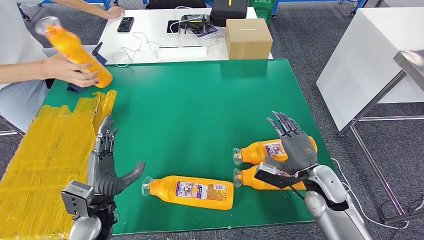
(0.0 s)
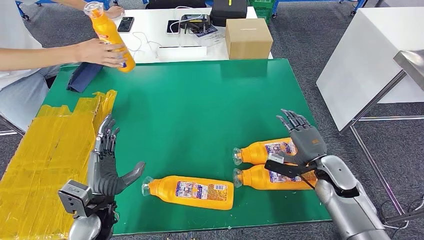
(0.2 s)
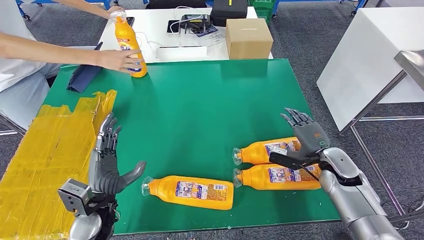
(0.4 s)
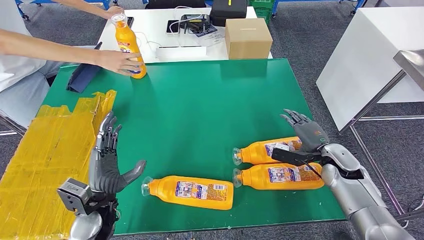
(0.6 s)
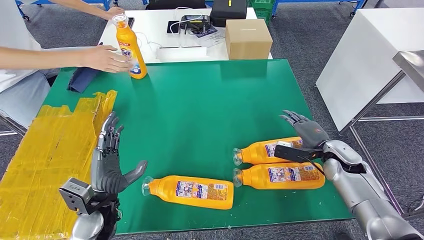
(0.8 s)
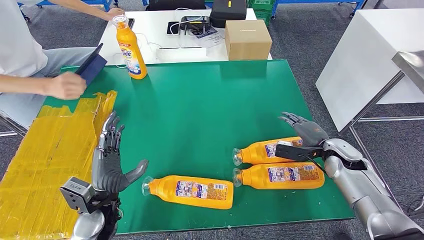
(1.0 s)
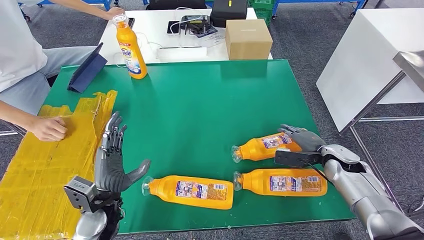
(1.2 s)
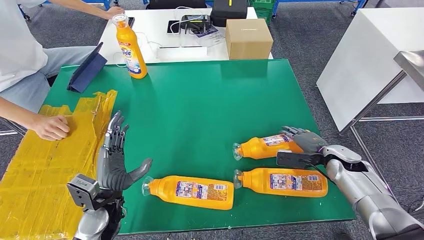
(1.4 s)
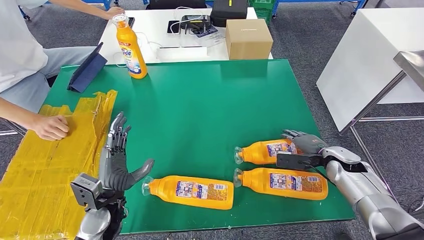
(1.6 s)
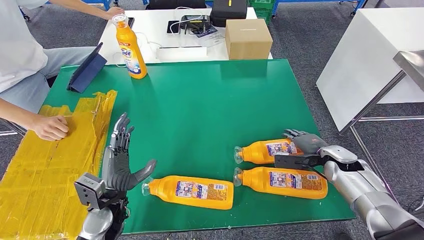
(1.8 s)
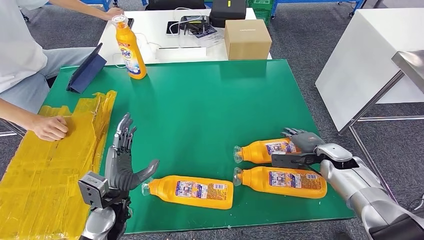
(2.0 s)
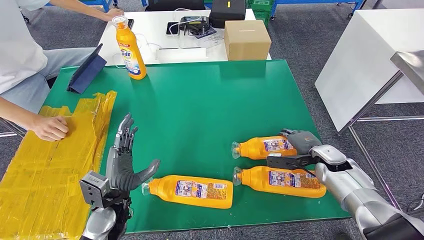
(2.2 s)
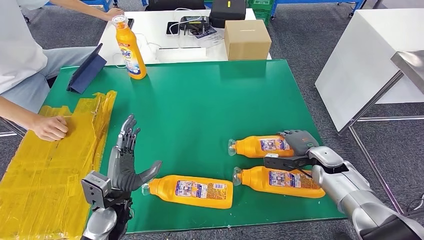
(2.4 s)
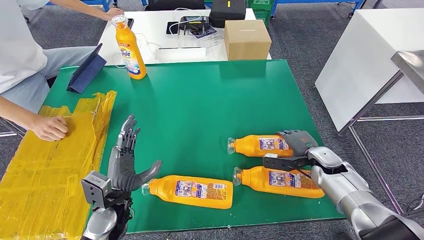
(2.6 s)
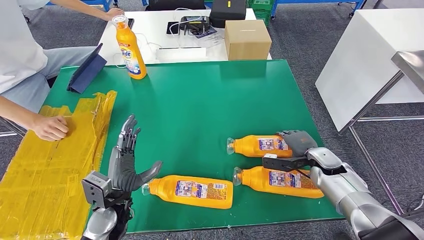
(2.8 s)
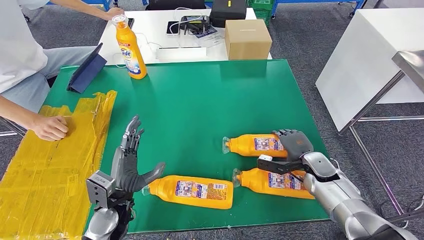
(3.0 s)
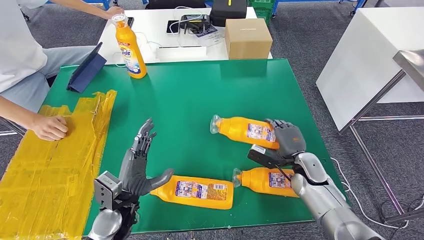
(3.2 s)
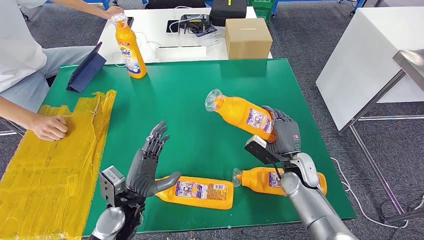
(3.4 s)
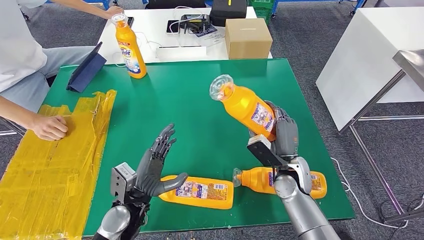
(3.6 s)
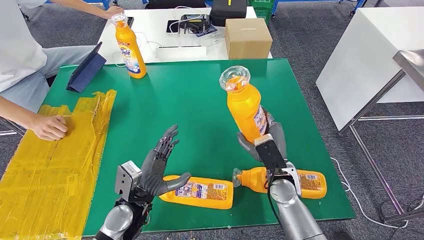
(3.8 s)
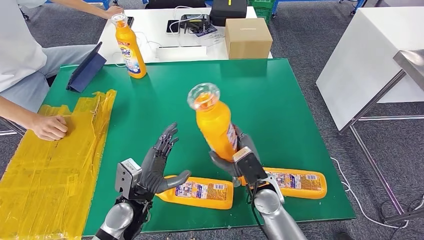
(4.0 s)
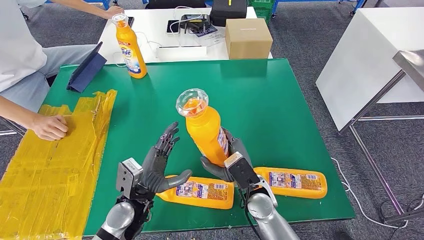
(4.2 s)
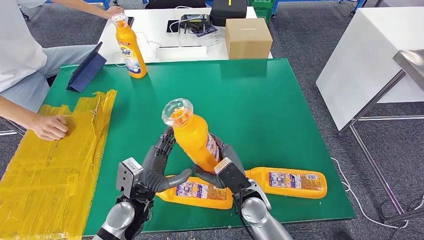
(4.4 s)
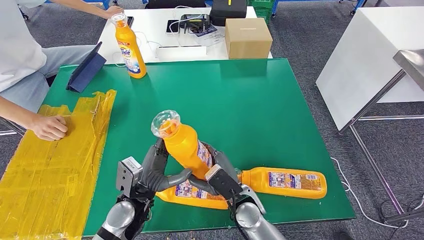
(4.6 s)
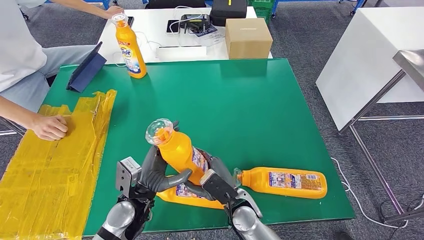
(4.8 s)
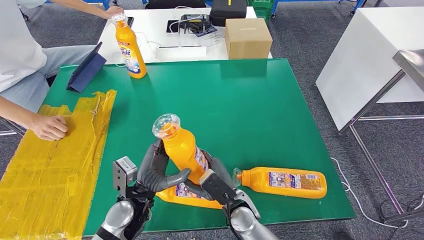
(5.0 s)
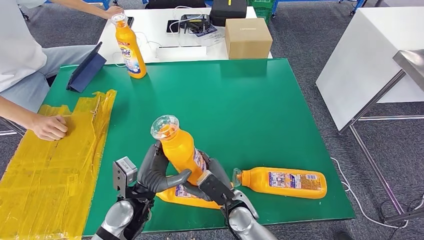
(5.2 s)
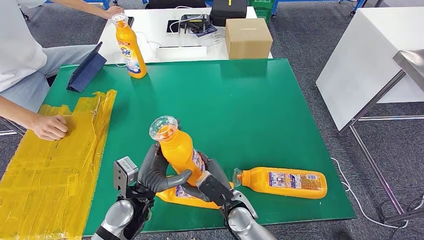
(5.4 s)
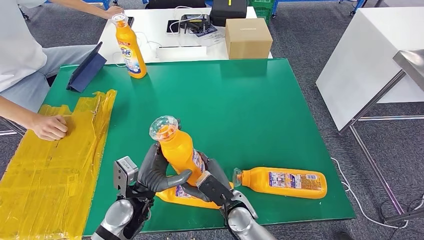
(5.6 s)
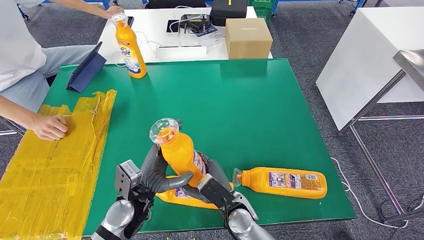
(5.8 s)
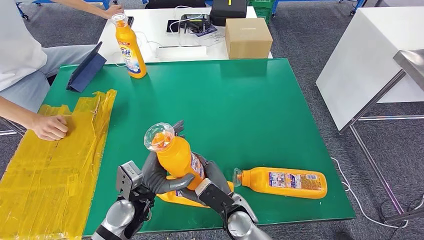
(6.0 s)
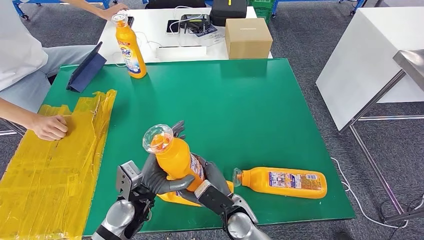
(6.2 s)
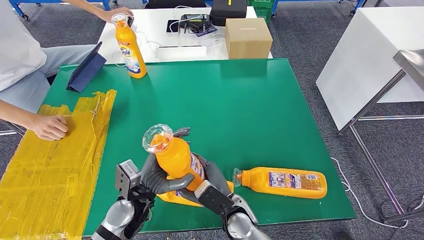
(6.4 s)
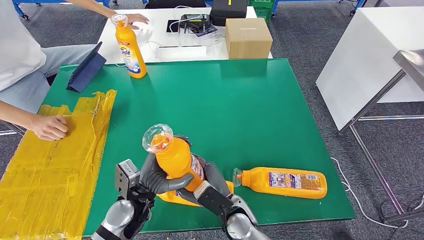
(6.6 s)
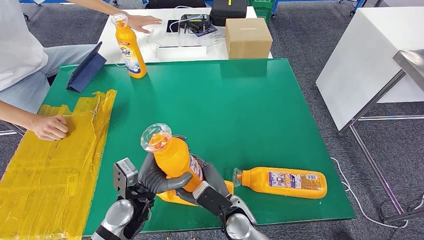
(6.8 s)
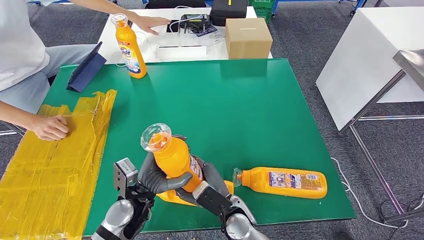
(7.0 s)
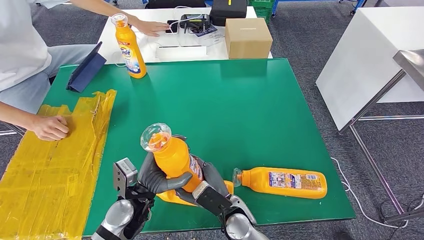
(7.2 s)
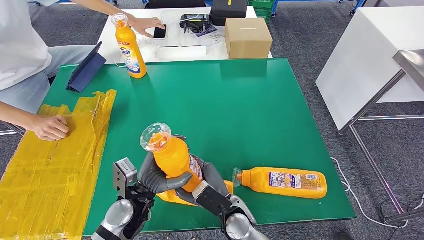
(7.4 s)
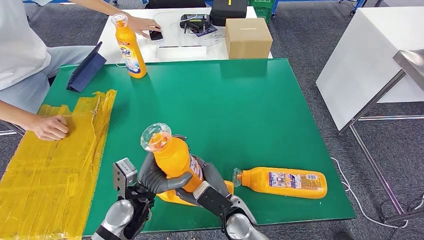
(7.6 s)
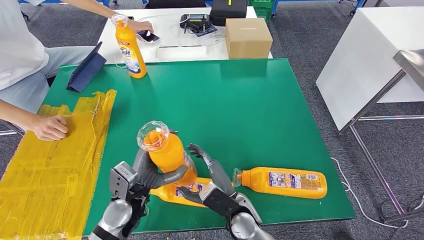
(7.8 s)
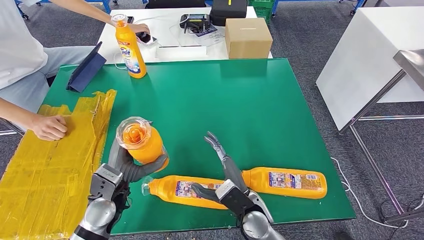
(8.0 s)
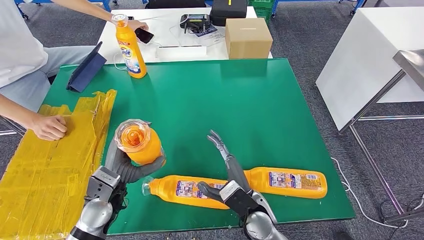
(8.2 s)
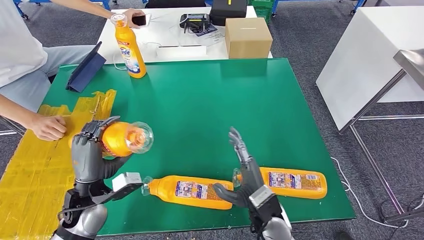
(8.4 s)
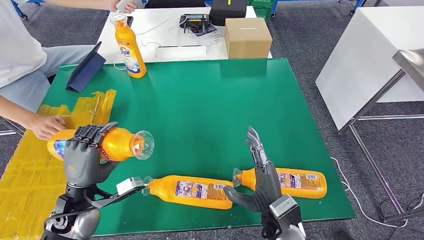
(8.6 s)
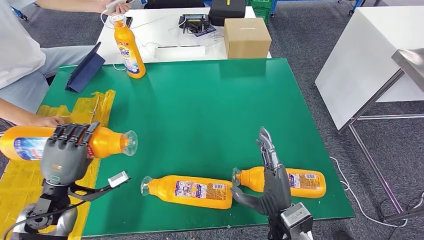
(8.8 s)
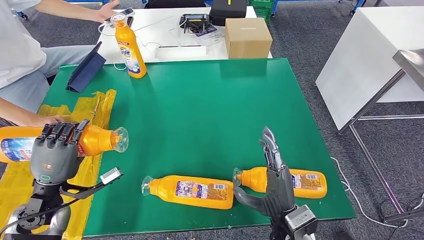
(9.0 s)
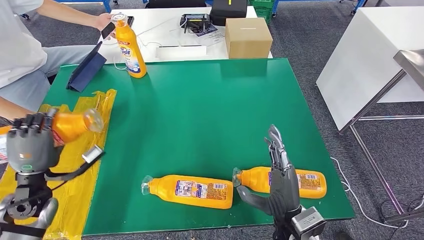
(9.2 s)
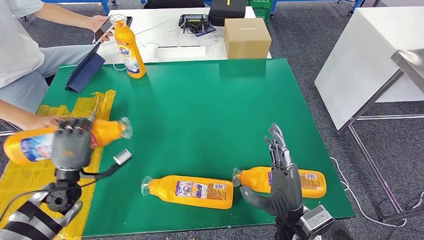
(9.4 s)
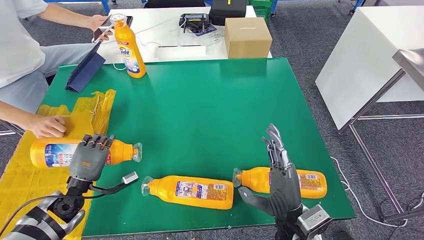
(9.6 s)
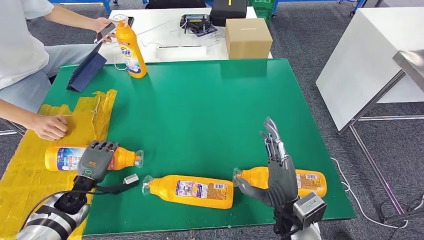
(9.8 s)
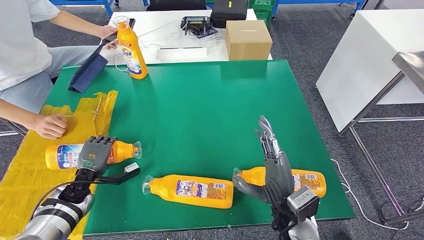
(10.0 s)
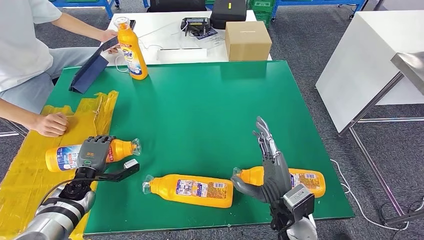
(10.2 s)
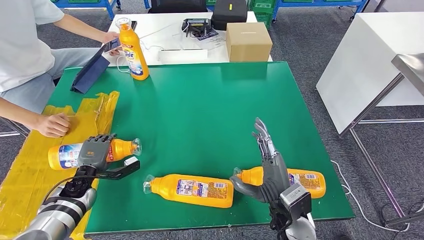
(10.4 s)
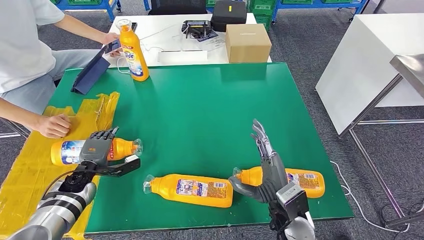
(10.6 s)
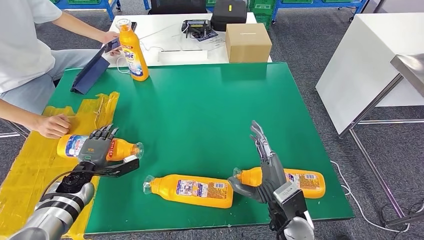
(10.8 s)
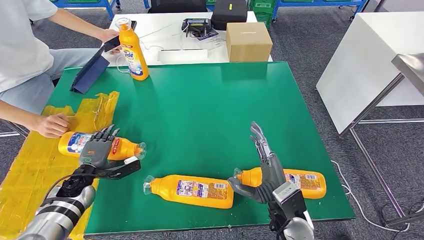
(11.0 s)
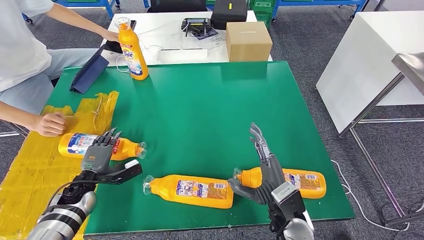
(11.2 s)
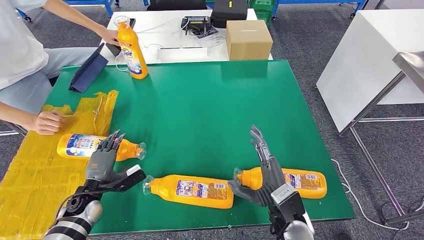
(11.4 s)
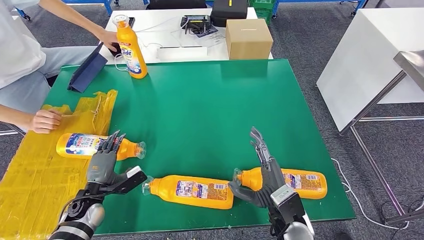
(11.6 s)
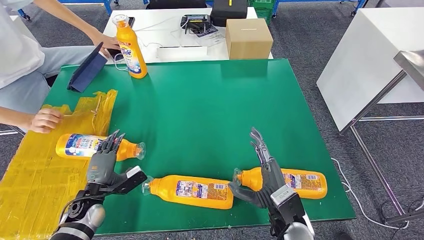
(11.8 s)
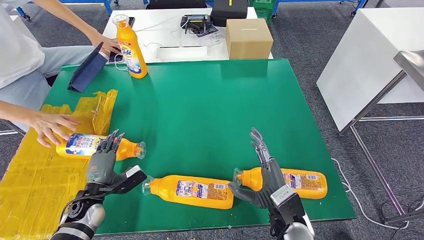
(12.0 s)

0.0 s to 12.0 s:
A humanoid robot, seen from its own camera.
Step, 0.0 to 3.6 s: Pick up the fast-moving consumer goods bottle from the table.
Step, 4.2 to 11.4 s: Flip the fast-moving consumer goods bottle to the front side.
0.0 to 1.6 s: The right hand moves to the right and forward, some 10 cm.
1.6 to 3.0 s: The right hand heads to the left, covering roughly 5 cm.
3.0 to 4.4 s: The right hand travels to the left and backward by some 25 cm.
4.4 to 6.0 s: The right hand shifts by about 5 cm.
6.0 to 7.6 s: The hands move only a little.

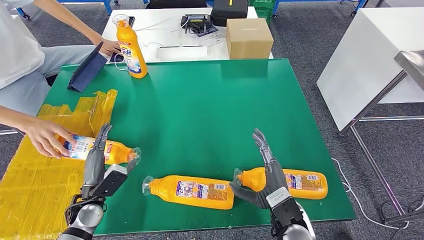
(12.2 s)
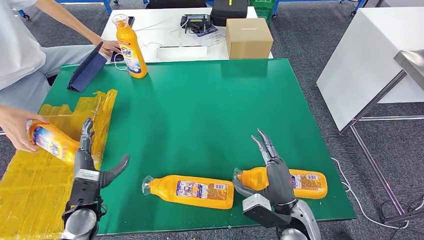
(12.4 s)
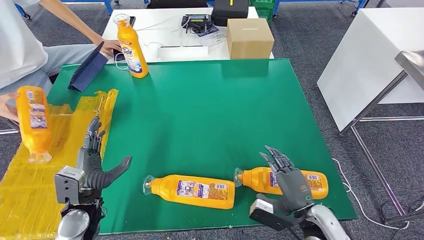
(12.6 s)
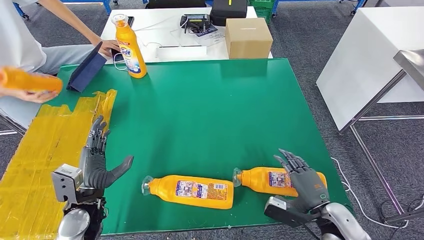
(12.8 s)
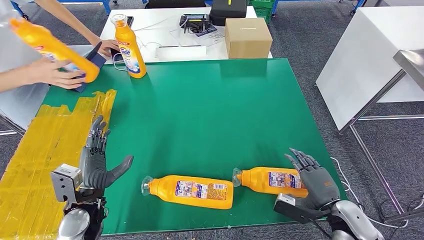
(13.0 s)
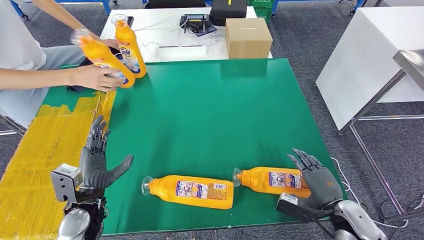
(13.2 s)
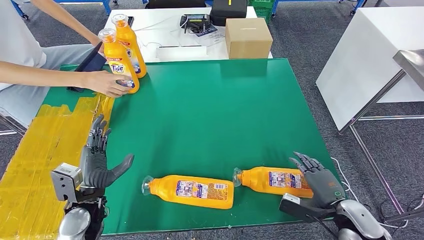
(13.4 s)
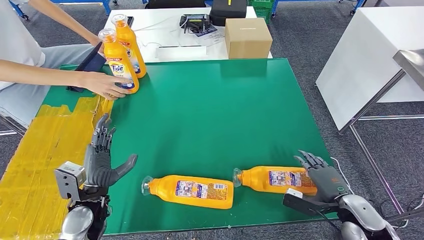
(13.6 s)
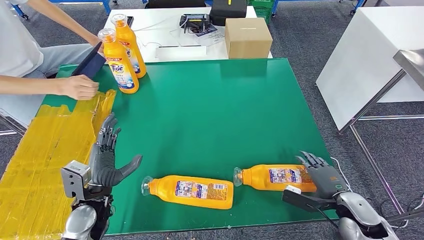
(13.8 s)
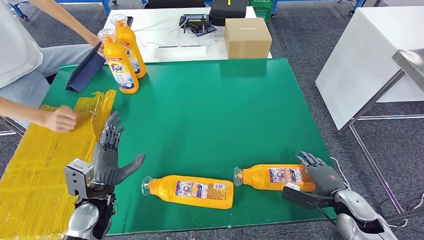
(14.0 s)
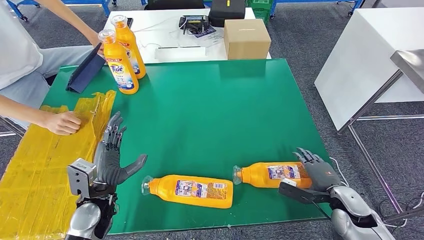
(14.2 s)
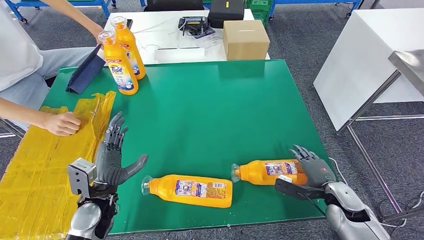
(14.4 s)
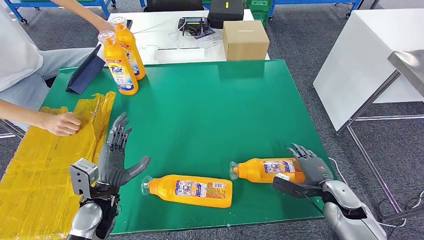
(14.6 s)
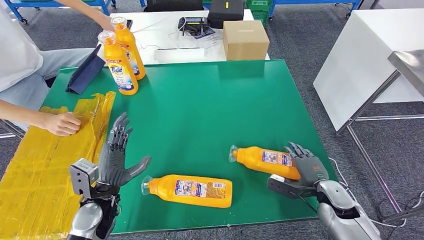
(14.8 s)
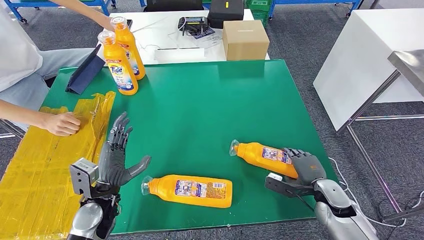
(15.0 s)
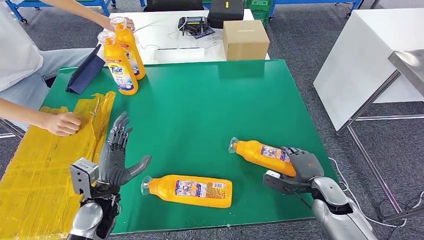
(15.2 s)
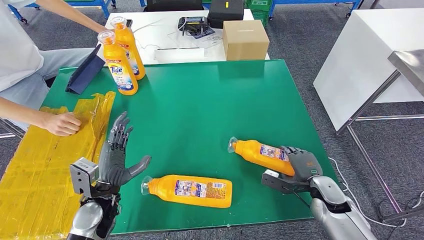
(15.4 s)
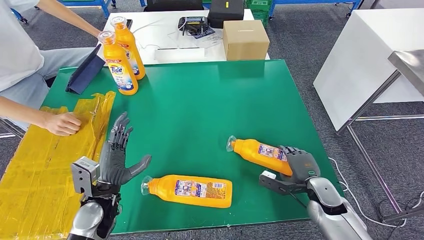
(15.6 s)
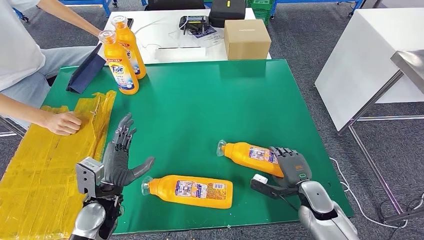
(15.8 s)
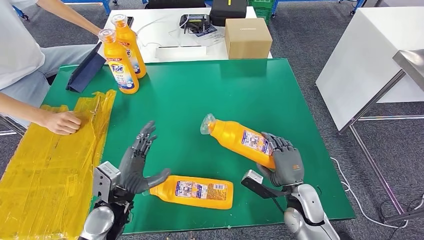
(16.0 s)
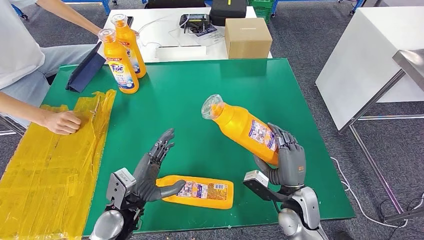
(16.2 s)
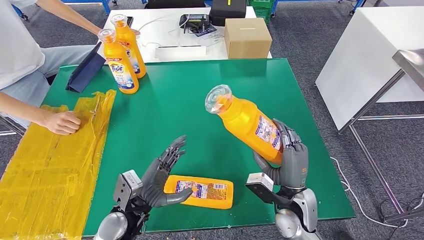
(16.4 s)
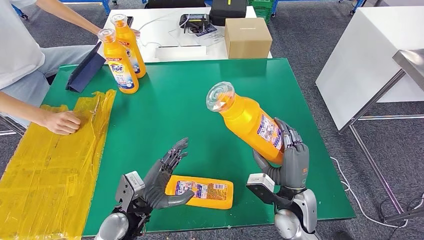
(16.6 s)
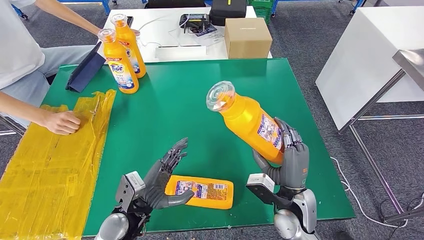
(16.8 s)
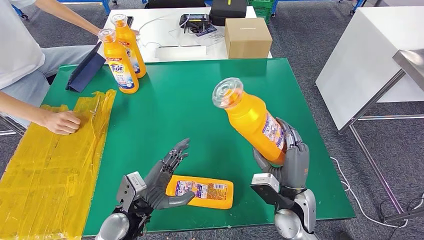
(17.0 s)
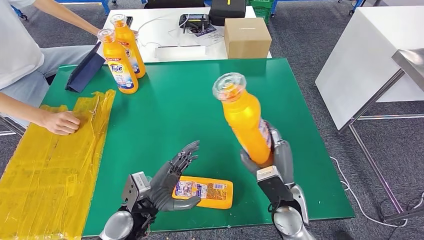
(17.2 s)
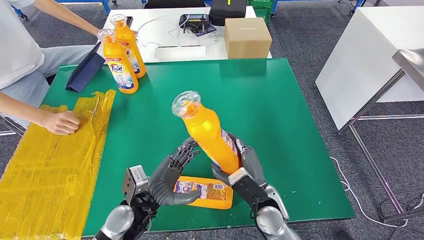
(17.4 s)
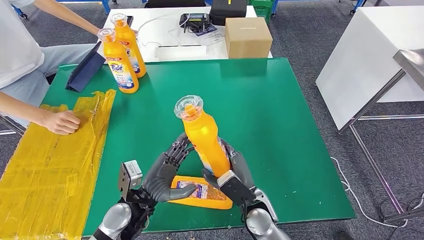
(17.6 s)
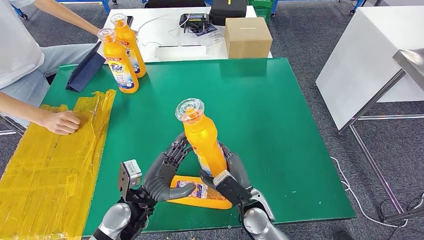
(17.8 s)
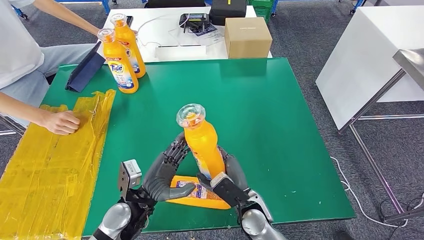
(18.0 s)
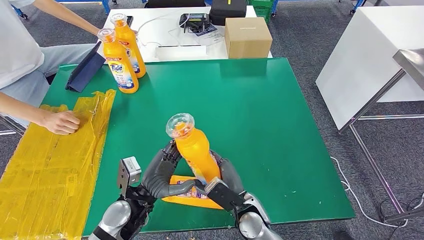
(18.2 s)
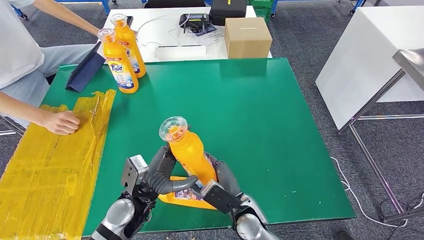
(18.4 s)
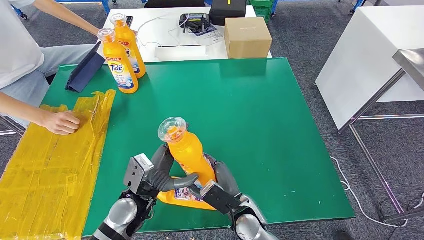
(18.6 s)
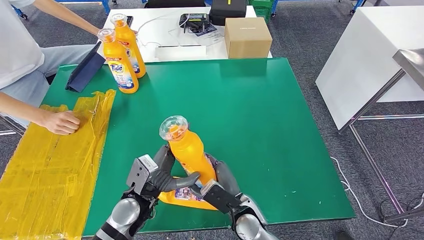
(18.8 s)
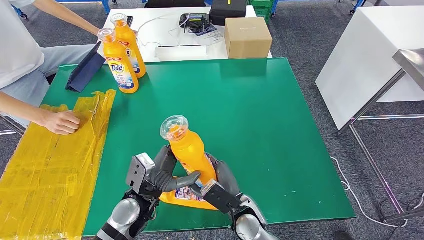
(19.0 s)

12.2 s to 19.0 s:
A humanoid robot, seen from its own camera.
Step, 12.2 to 16.6 s: Pick up the fast-moving consumer goods bottle from the table.
16.2 to 17.6 s: The right hand moves to the left, approximately 10 cm.
17.6 to 19.0 s: The hands stay close to where they were, moving slightly.
